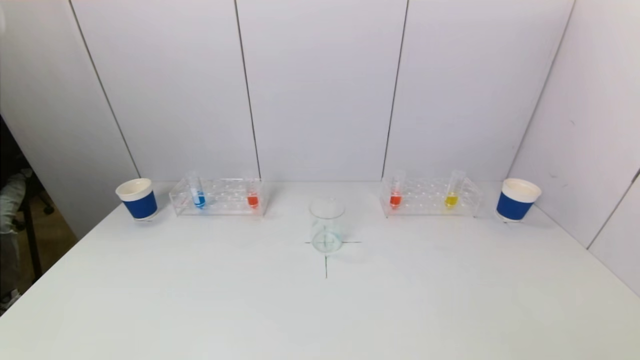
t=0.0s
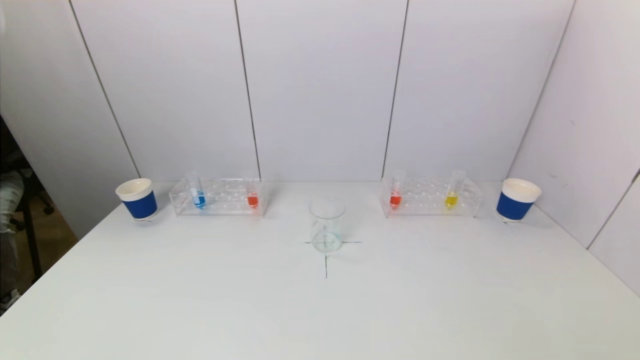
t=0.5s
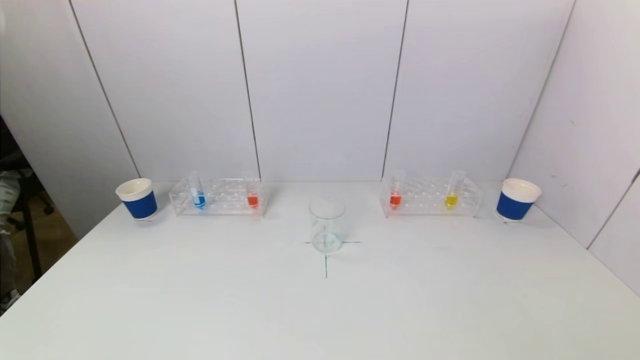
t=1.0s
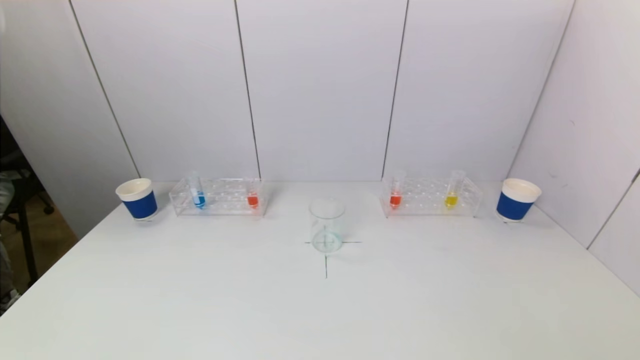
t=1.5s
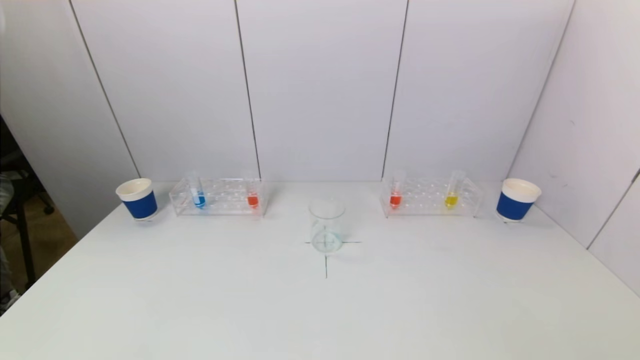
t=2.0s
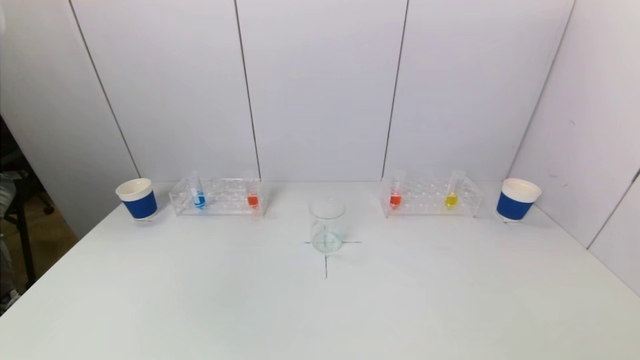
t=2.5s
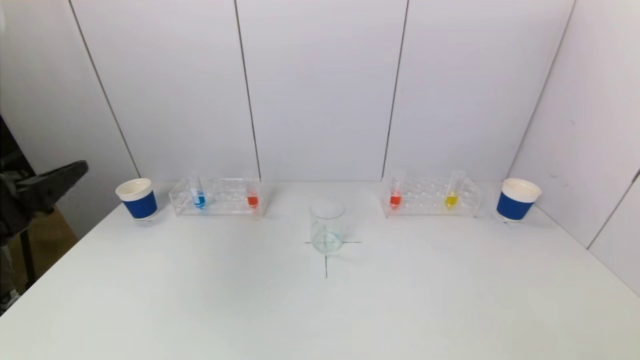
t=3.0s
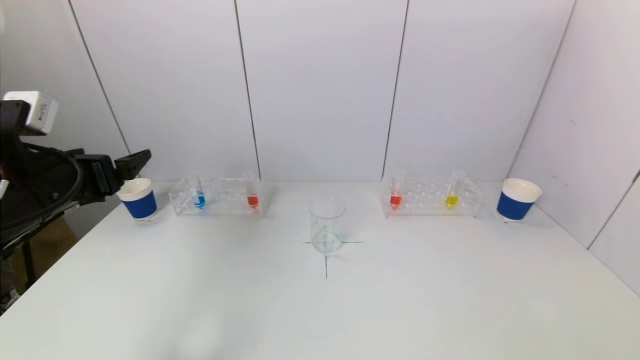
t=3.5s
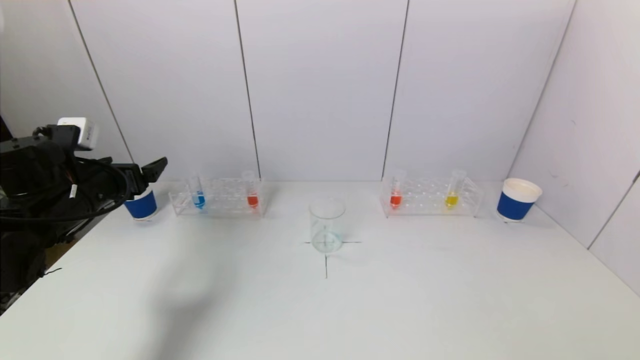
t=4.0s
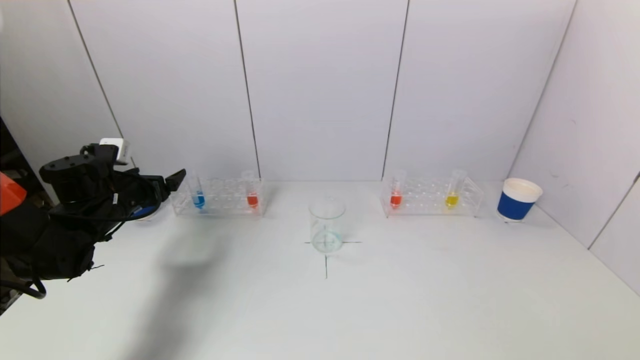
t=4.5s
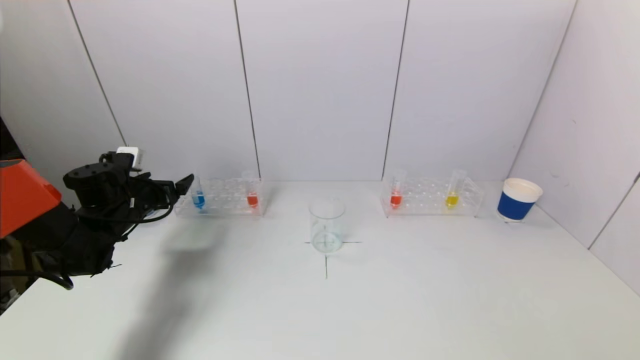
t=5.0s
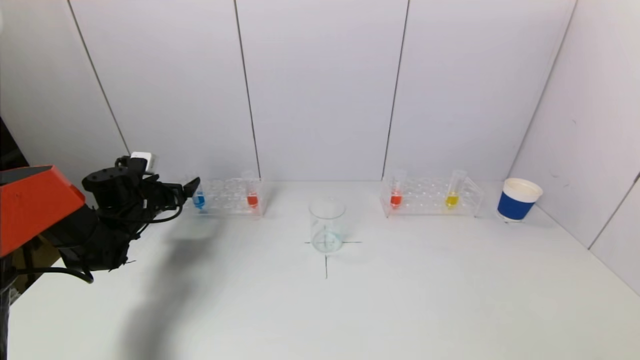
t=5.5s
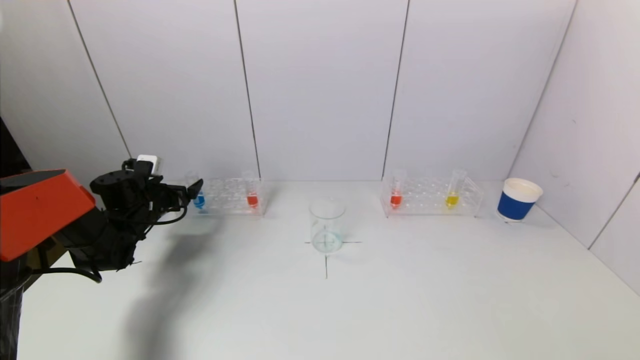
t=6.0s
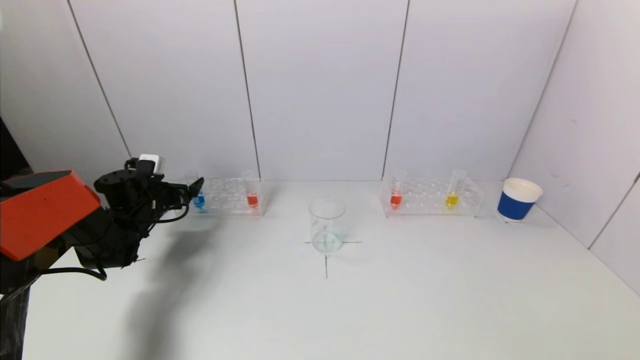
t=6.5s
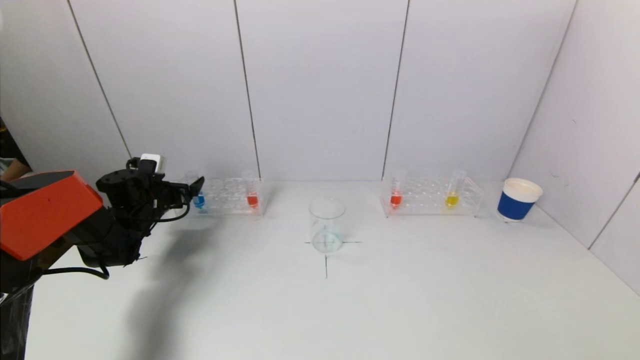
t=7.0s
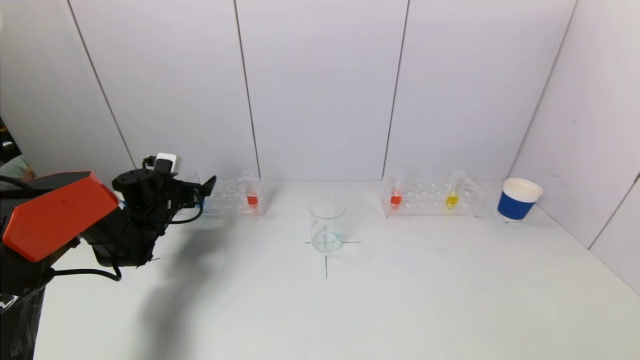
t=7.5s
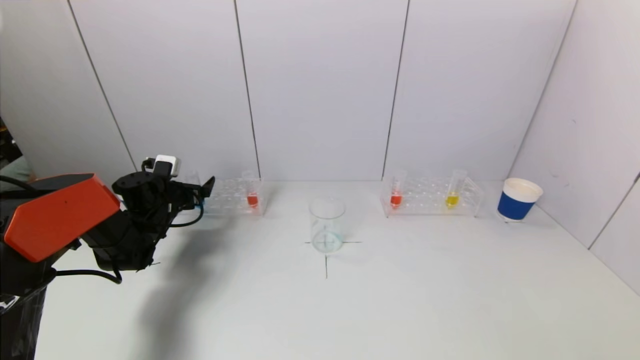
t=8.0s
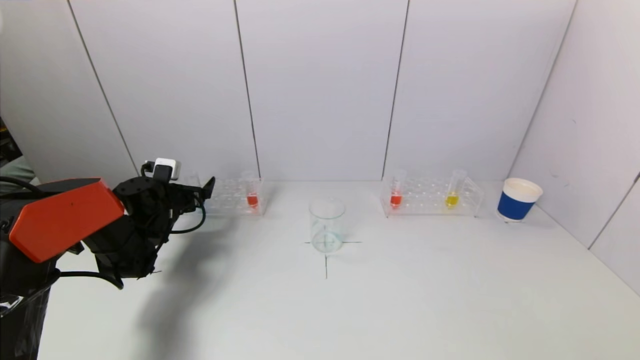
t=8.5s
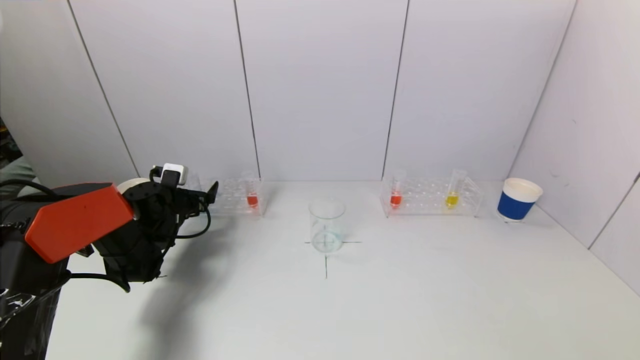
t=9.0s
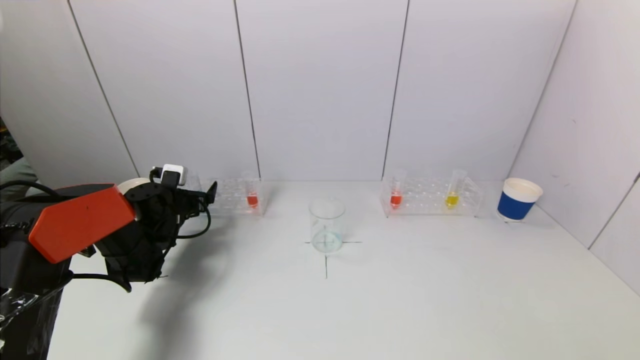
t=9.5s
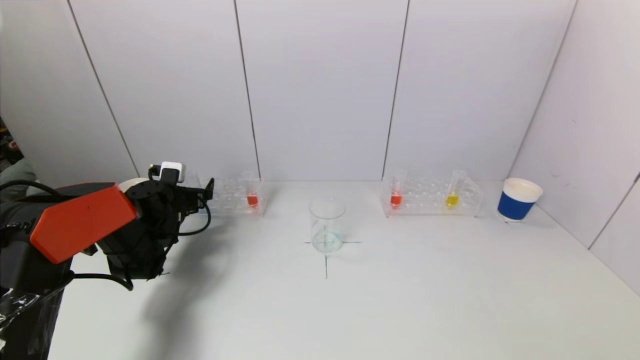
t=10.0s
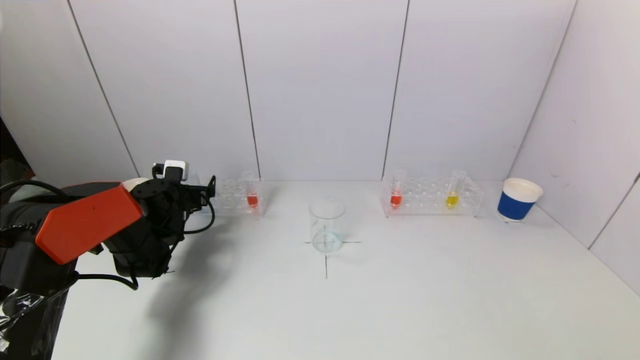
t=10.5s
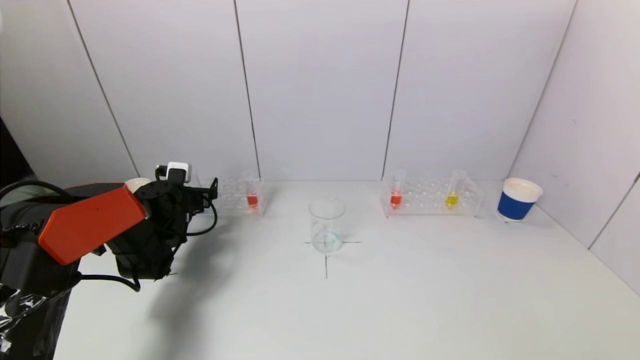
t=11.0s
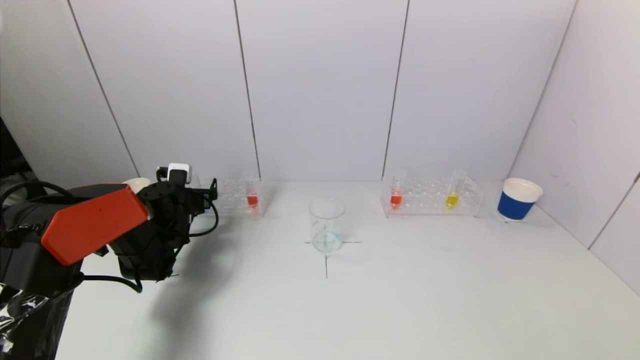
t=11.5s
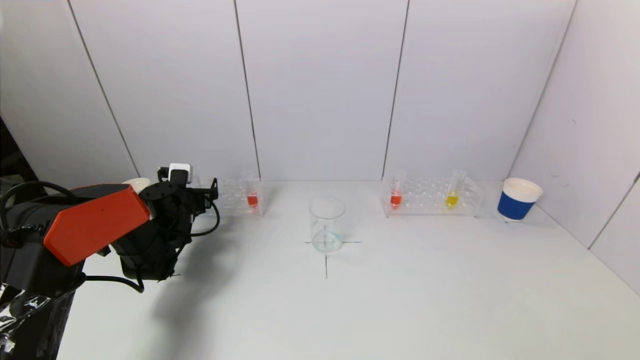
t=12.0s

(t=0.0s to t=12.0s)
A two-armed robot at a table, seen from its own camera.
Task of the whole recording: pick up a test tube with pigment on left test tube rack and a test tube with pigment on right test tube rack by grippers and pour them into the beaker.
t=0.0s - t=2.0s: The left gripper is displaced upward by roughly 10 cm.
t=2.0s - t=4.0s: The left gripper shifts about 35 cm forward.
t=4.0s - t=6.0s: The left gripper travels forward and downward by roughly 15 cm.
t=6.0s - t=10.0s: The grippers make only small movements.
t=10.0s - t=12.0s: The grippers move only a little.

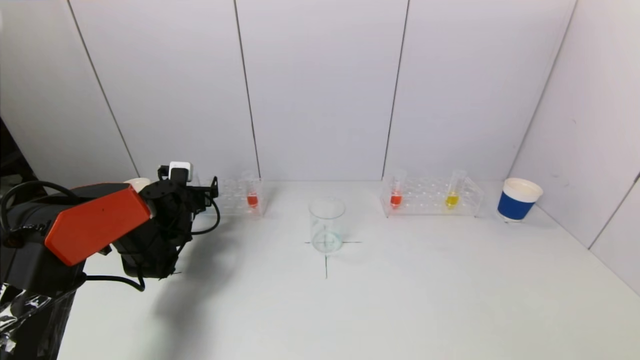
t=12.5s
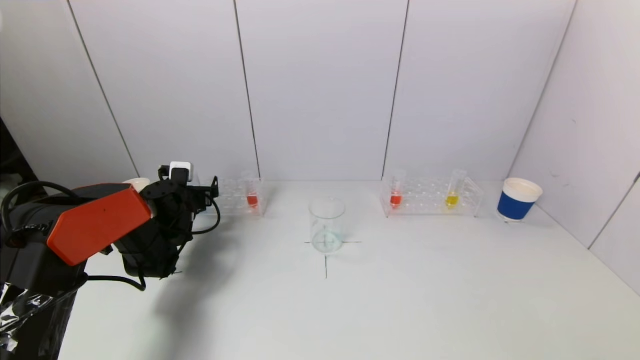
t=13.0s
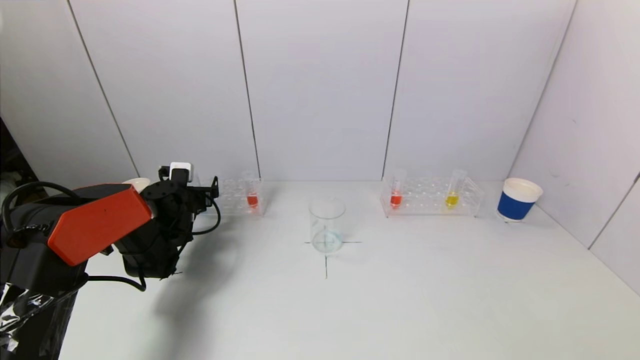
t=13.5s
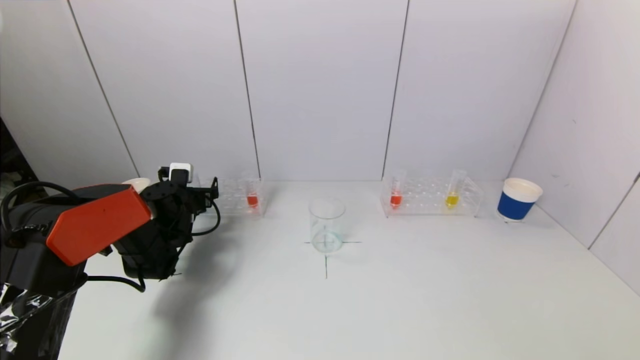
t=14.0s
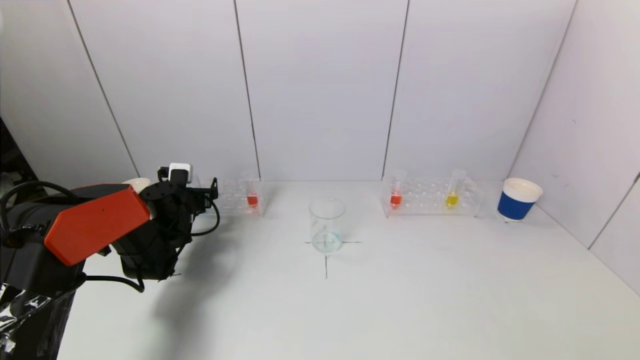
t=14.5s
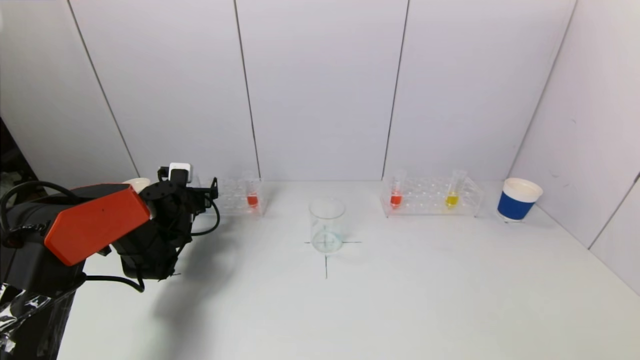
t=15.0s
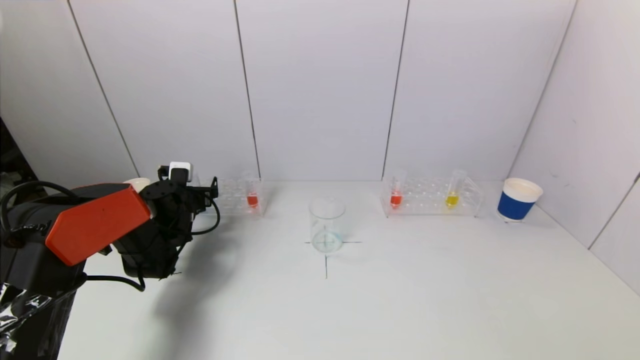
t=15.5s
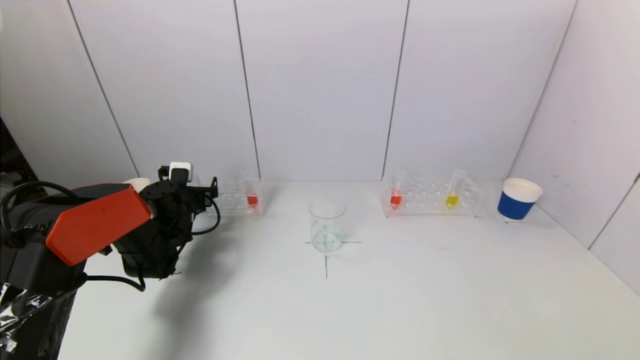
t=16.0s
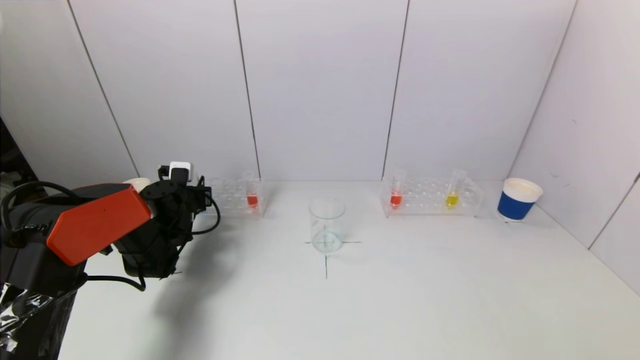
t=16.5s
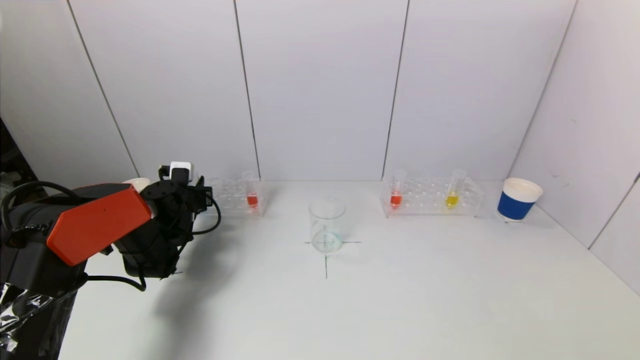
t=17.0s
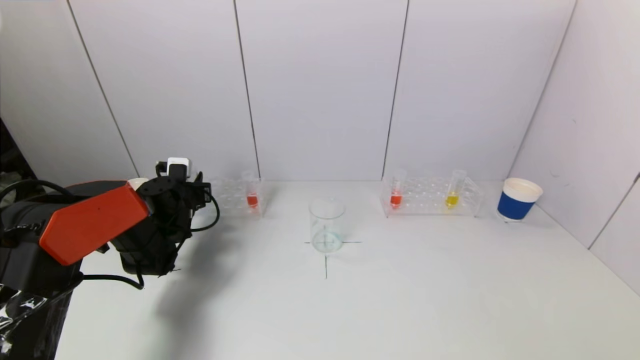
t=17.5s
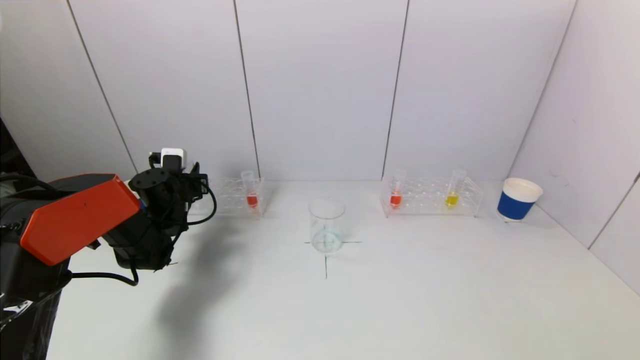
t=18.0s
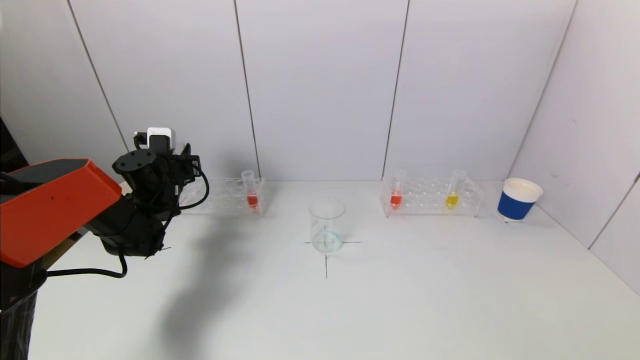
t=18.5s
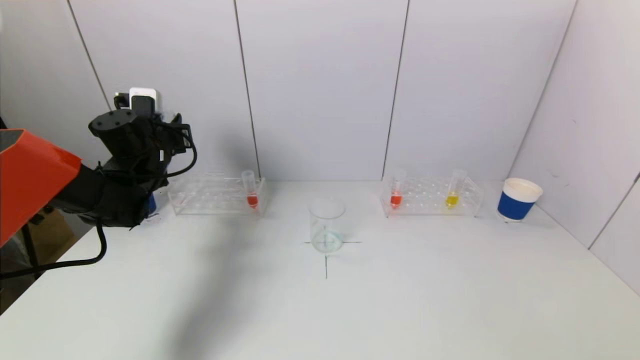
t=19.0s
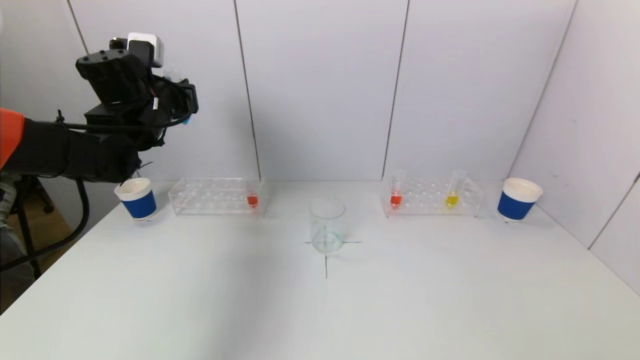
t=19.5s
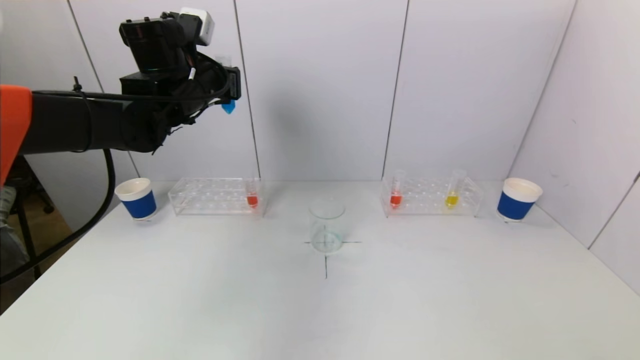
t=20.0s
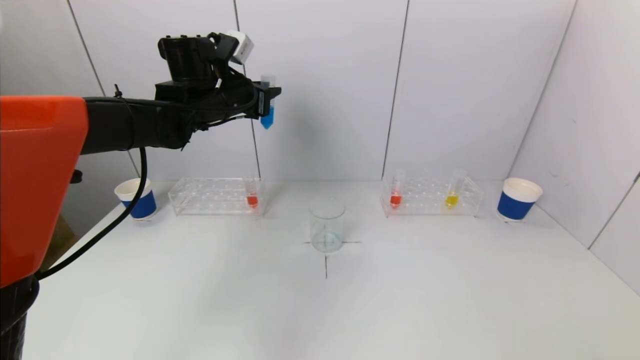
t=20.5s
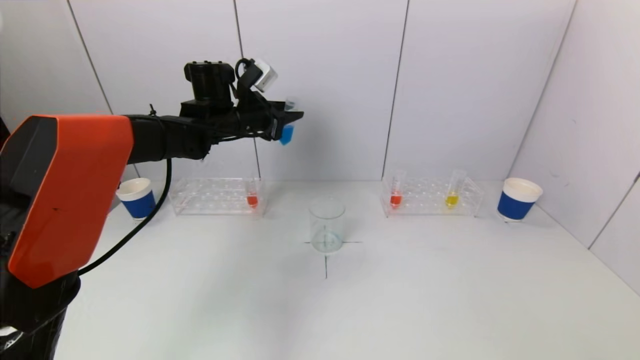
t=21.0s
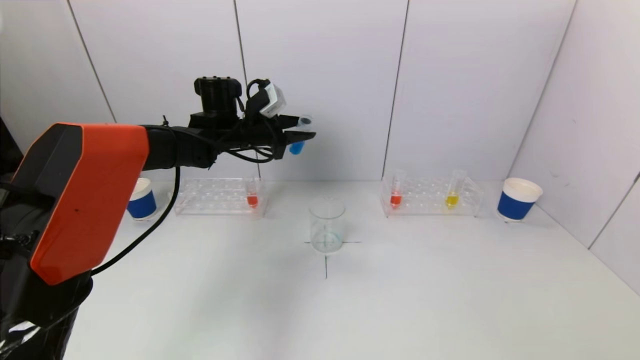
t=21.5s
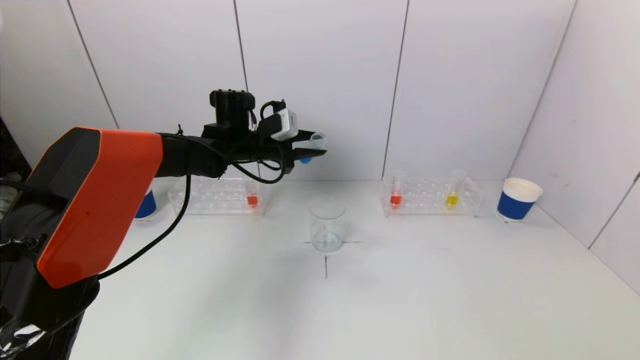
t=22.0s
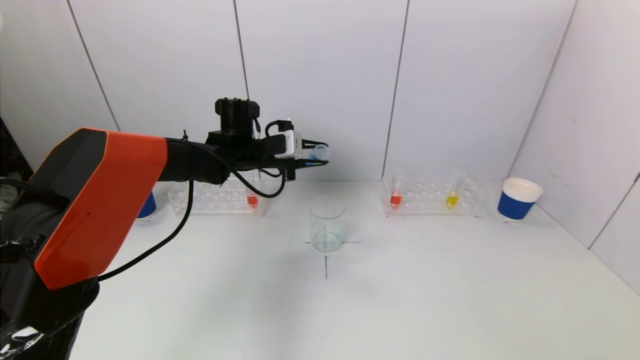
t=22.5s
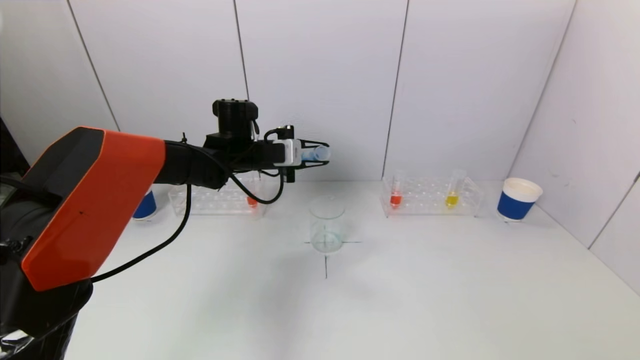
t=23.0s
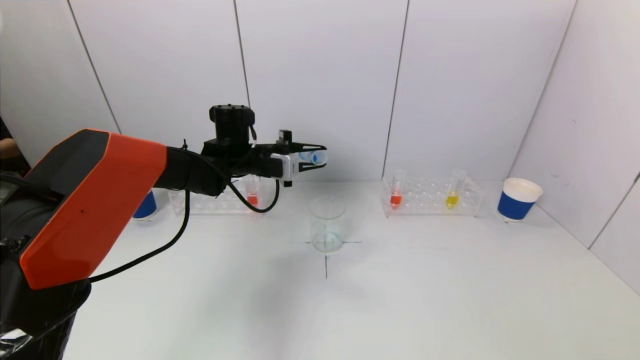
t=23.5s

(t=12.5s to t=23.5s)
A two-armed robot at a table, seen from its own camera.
Task of the whole recording: pick up a test tube with pigment on left test tube rack and a test tube with pigment on right test tube rack by grippers and pour them into the beaker.
t=12.5s - t=16.0s: Neither gripper changes place.
t=16.0s - t=18.0s: The left gripper closes up.
t=18.0s - t=20.0s: The left gripper shifts about 25 cm upward and to the right.
t=20.0s - t=21.5s: The left gripper shifts about 10 cm downward and forward.
t=21.5s - t=23.5s: The left gripper changes place by some 5 cm.
